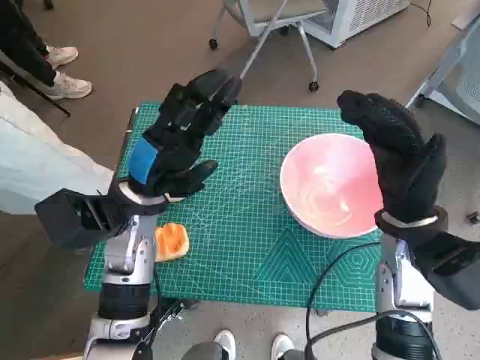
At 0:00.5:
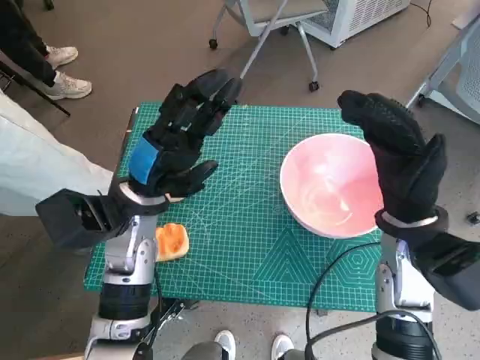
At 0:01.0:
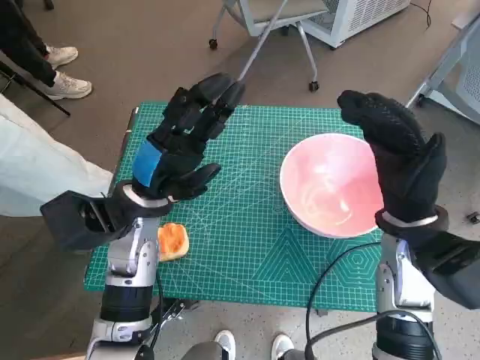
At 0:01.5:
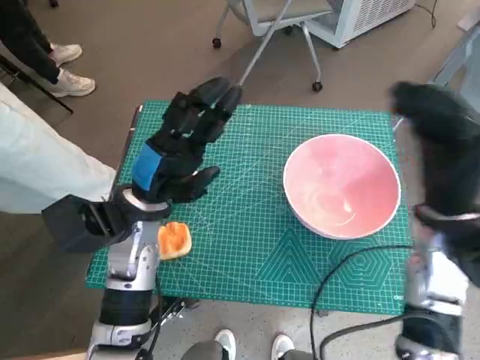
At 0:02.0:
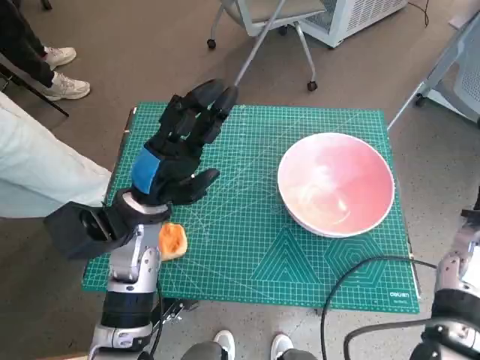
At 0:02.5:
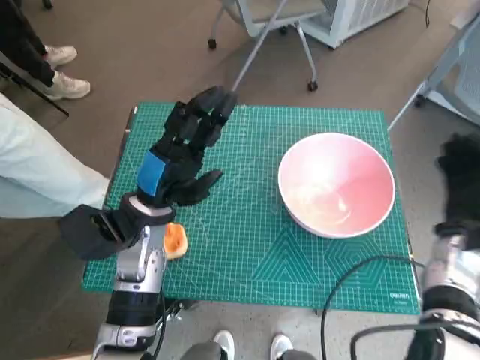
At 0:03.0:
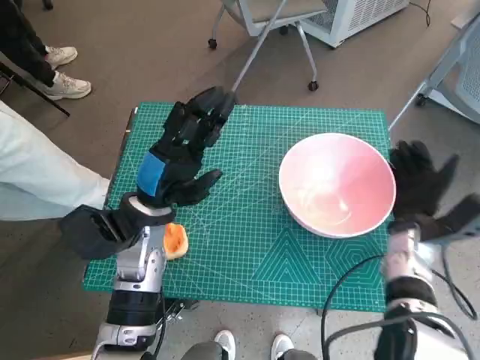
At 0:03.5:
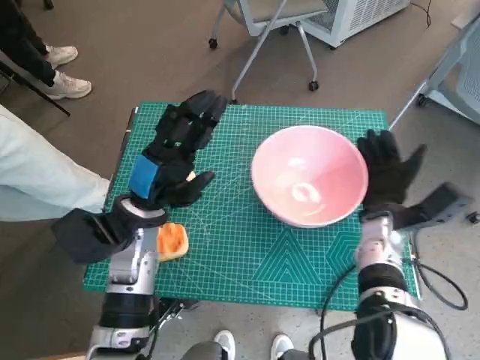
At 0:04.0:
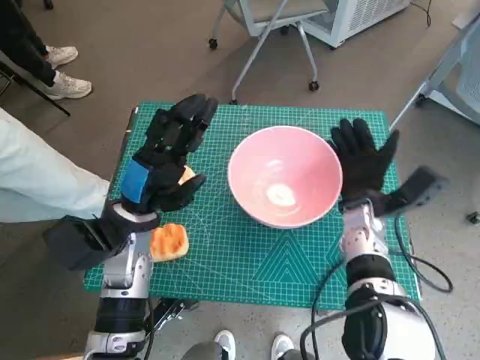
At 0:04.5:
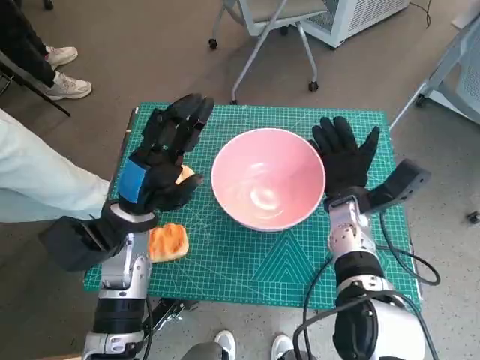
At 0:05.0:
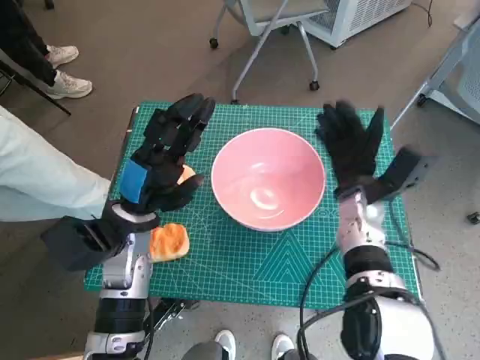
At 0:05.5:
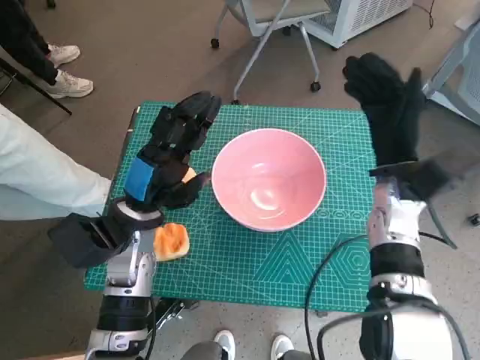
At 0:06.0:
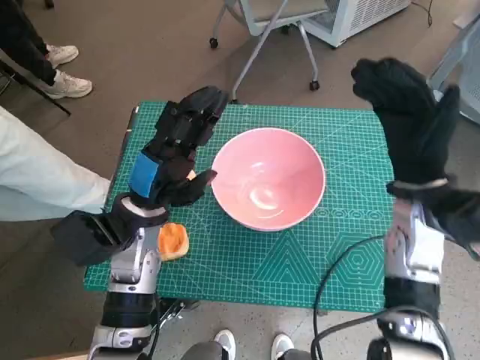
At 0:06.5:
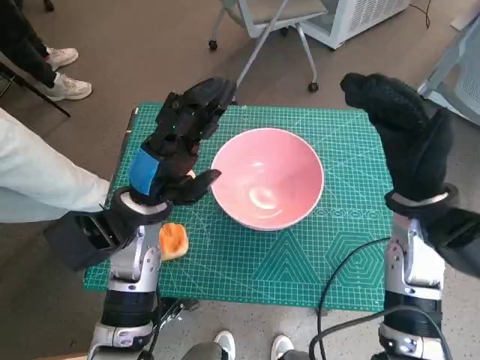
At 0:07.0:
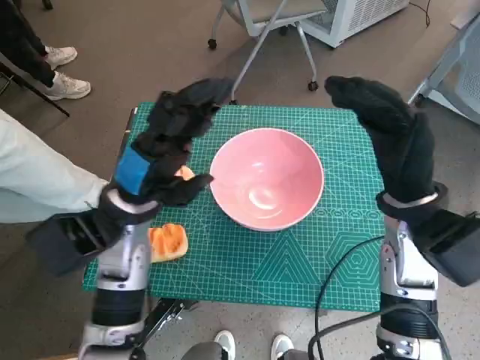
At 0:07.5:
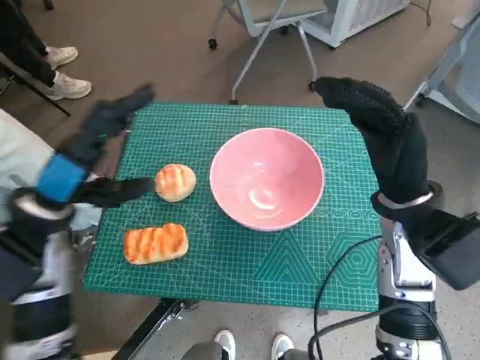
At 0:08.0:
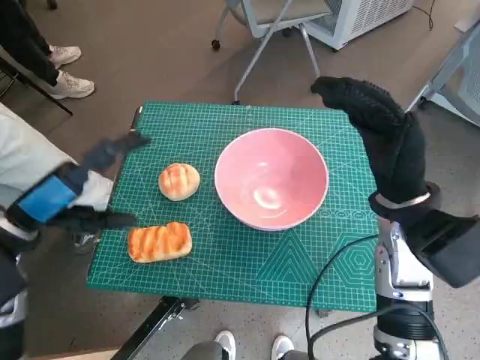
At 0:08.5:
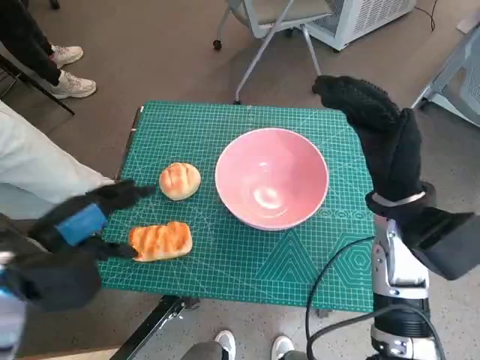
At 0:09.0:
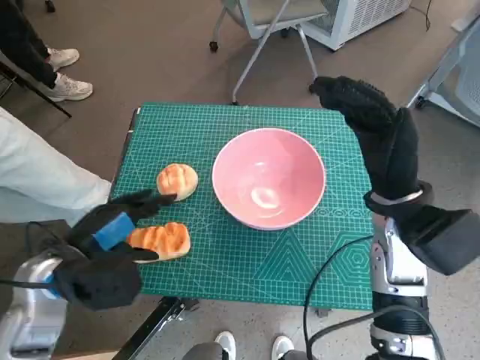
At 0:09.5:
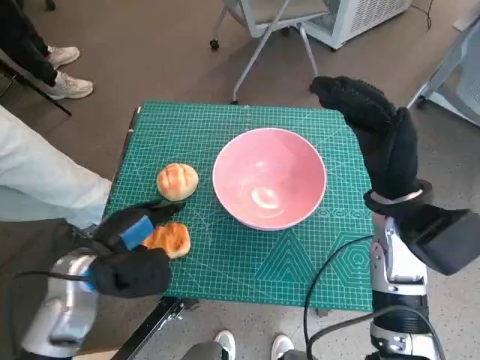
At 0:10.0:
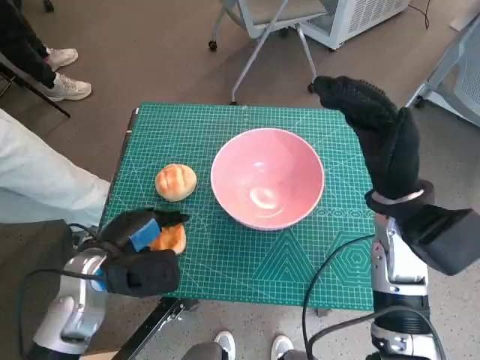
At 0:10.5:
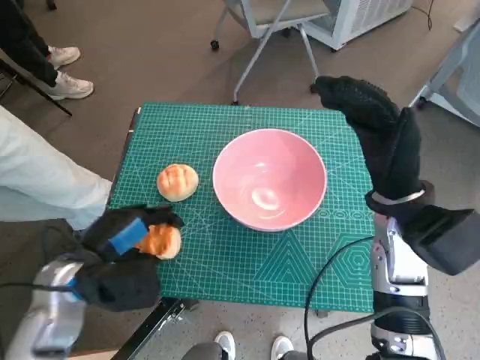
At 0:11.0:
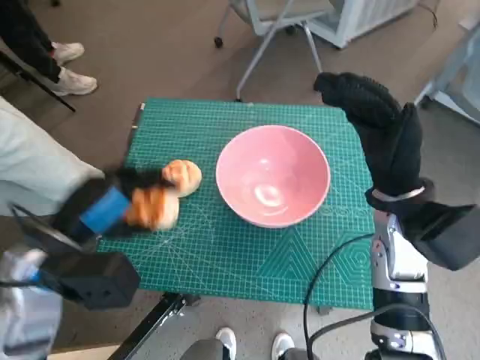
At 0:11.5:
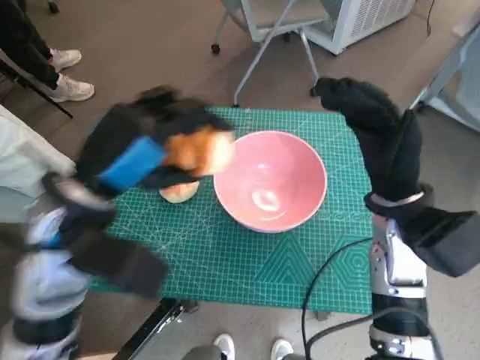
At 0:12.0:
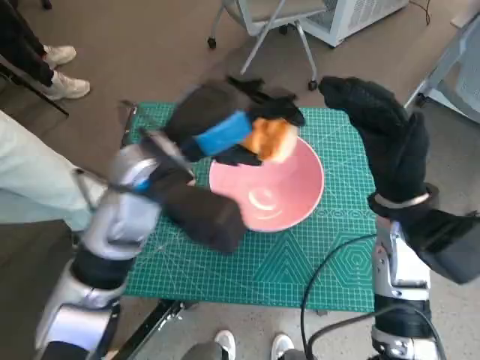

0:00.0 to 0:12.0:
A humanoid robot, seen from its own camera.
Task of the whole recording: Push the bowl into the center of the table and put the bread into the bowl.
Step, 0:00.0 to 0:05.0: Move the pink bowl to the center of table with right hand.
Step, 0:05.5 to 0:10.0: Grasp the long bread with left hand.
0:02.0 to 0:04.0: The right hand is displaced to the left and downward by about 15 cm.
0:04.0 to 0:06.0: The right hand shifts approximately 10 cm upward.
0:06.0 to 0:08.0: The left hand travels to the left, upward and backward by approximately 15 cm.
0:08.0 to 0:10.0: The left hand is displaced downward and to the right by approximately 10 cm.
0:10.0 to 0:12.0: The left hand goes about 20 cm upward, to the right and forward.

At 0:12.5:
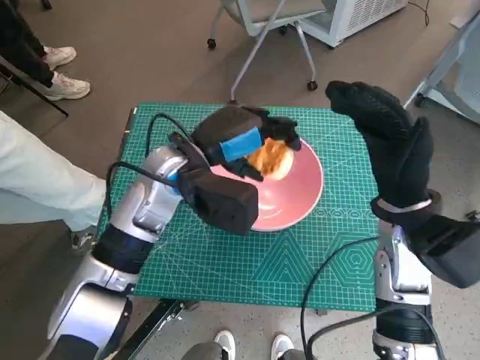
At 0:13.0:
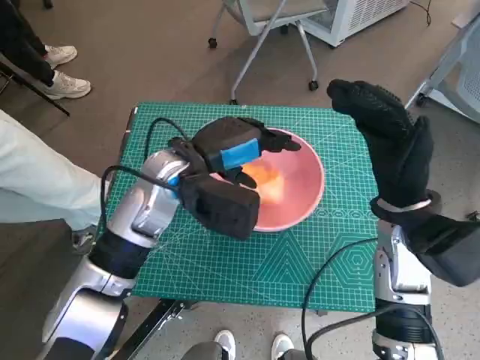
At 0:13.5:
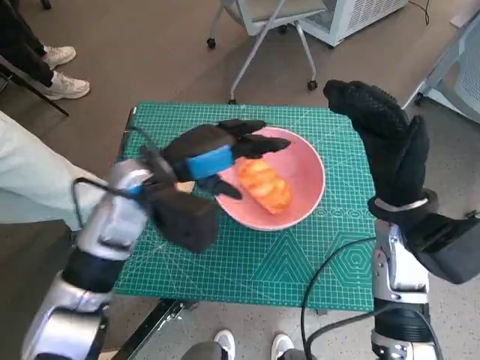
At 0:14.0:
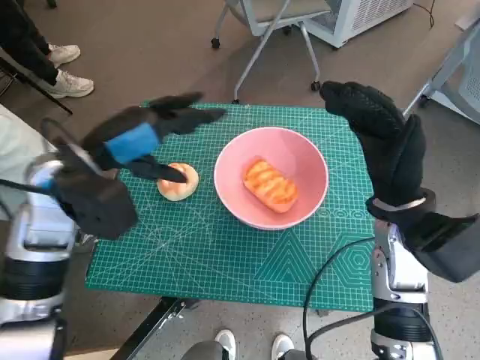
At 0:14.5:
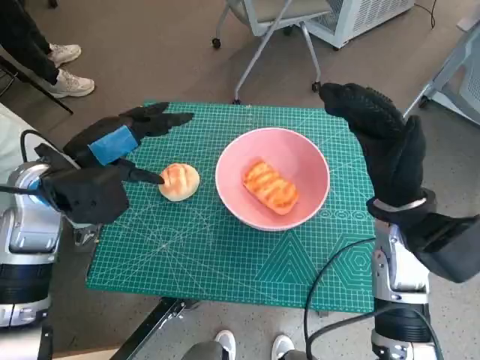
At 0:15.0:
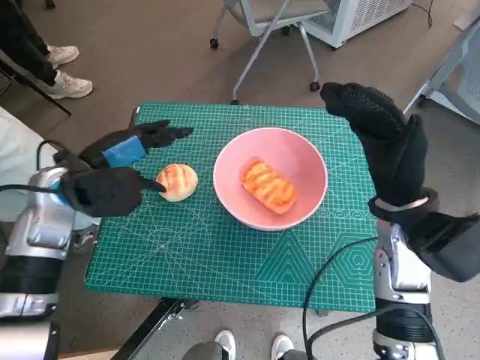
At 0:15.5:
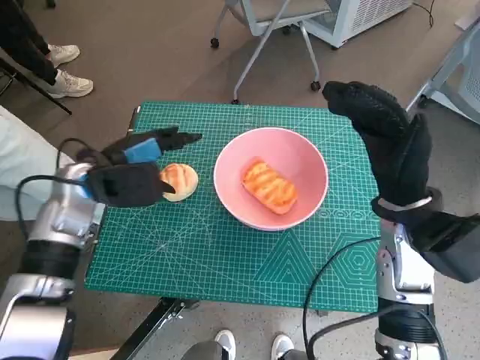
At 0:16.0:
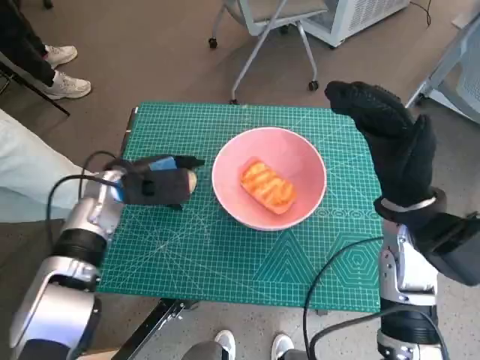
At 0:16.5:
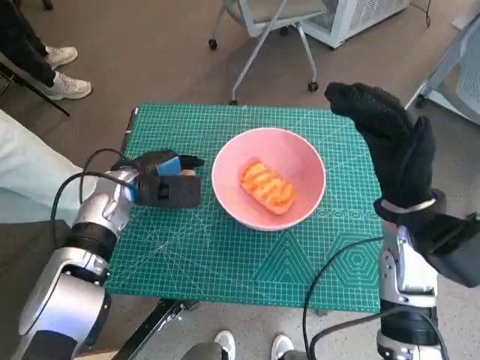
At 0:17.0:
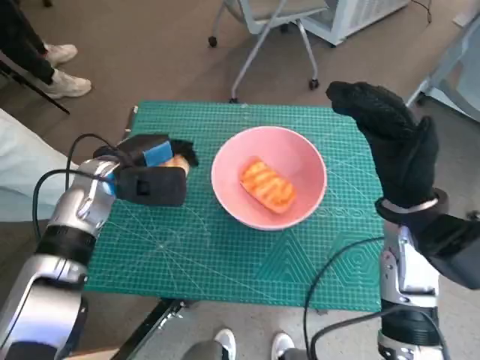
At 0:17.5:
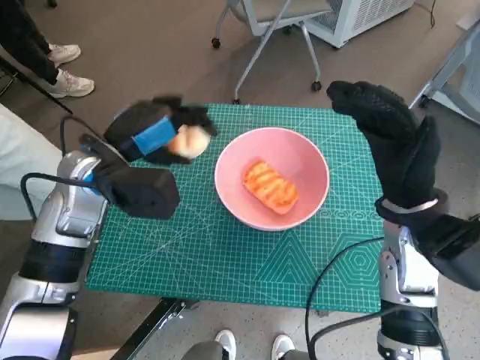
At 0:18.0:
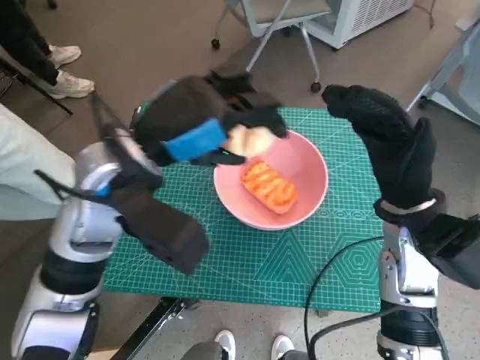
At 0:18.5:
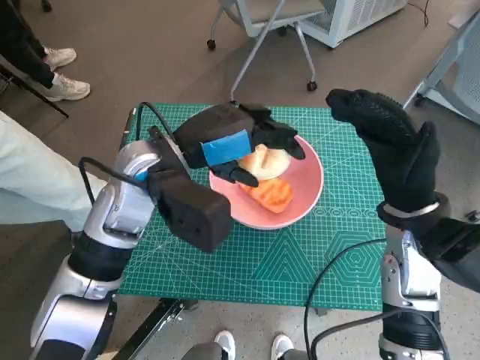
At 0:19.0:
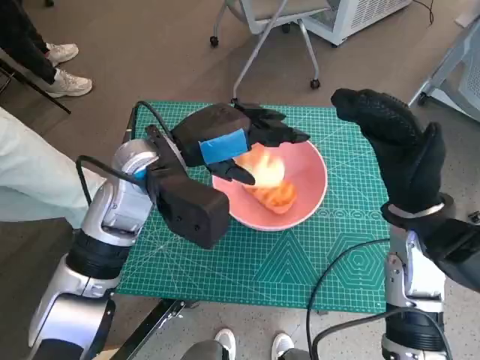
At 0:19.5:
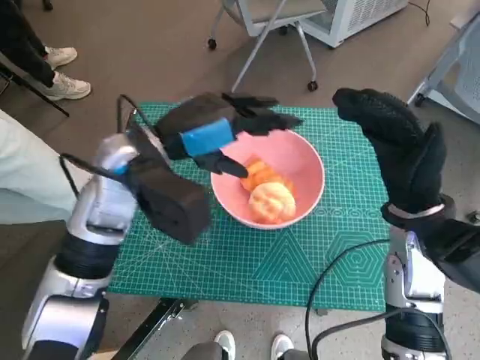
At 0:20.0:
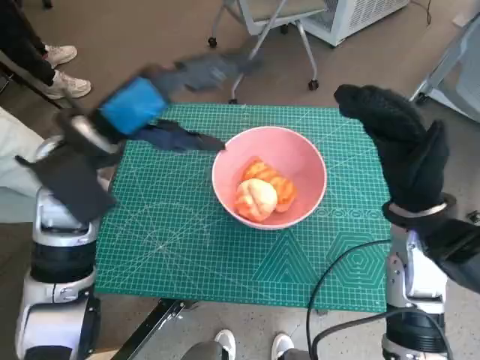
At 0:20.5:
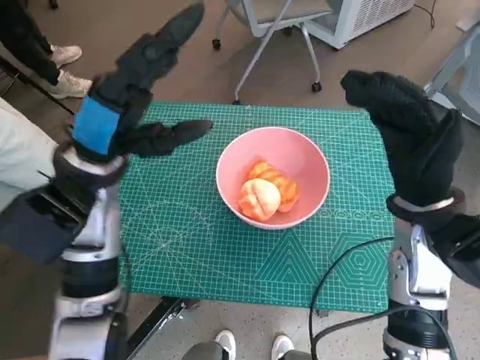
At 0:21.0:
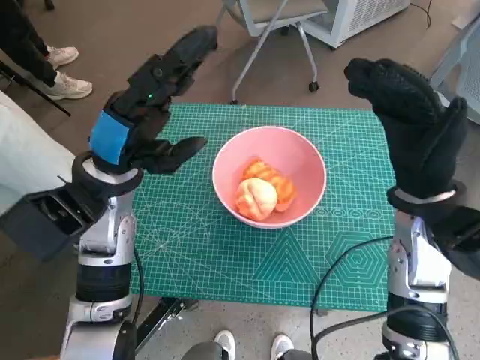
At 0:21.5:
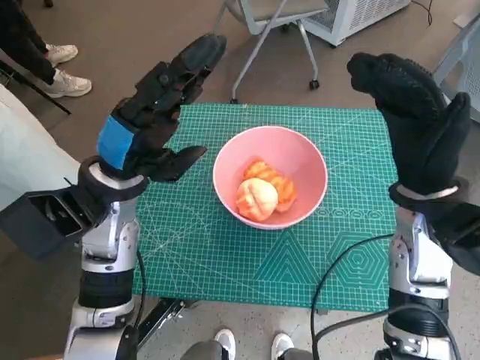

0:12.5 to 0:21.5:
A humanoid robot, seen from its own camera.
Task of the whole recording: Push the bowl into the center of the table and put the bread into the bowl.
Step, 0:14.0 to 0:16.0: Grasp the round bread with left hand.
Step, 0:16.5 to 0:19.0: Place the round bread in pink bowl with left hand.
0:12.5 to 0:14.5: The left hand is displaced to the left by approximately 15 cm.
0:14.5 to 0:17.0: The left hand goes roughly 10 cm downward and forward.
0:17.0 to 0:19.5: The left hand shifts some 15 cm upward and to the right.
0:19.5 to 0:21.5: The left hand ends up about 5 cm from where it was.

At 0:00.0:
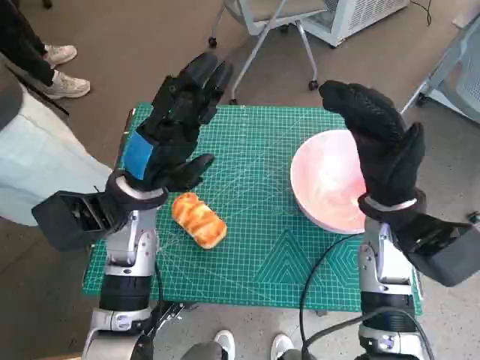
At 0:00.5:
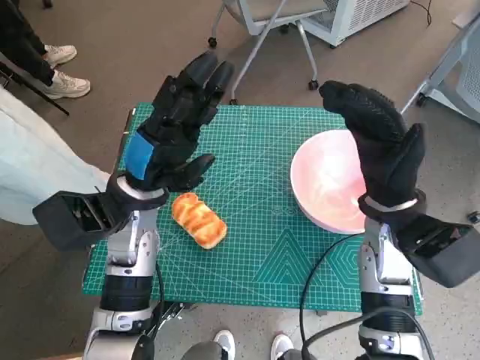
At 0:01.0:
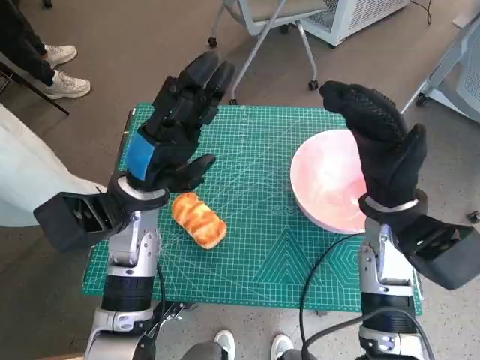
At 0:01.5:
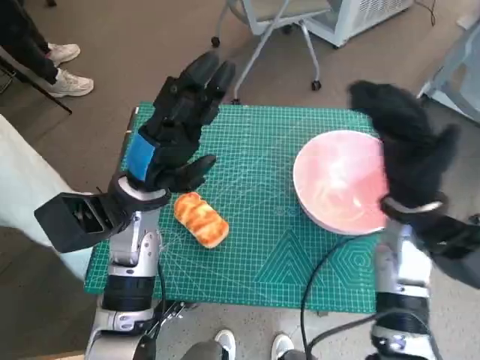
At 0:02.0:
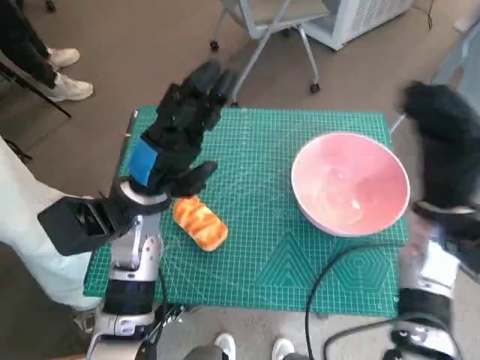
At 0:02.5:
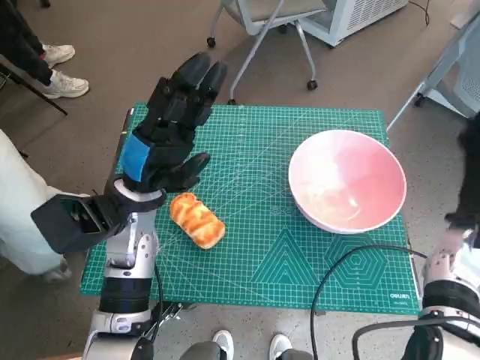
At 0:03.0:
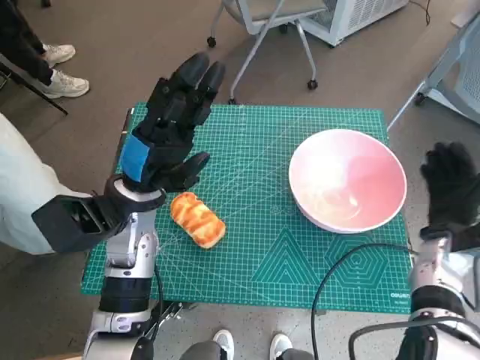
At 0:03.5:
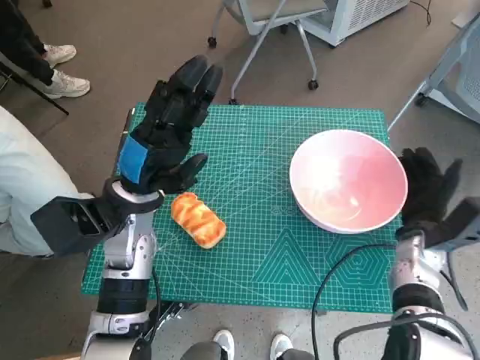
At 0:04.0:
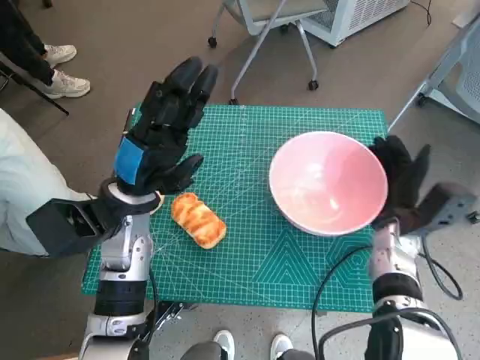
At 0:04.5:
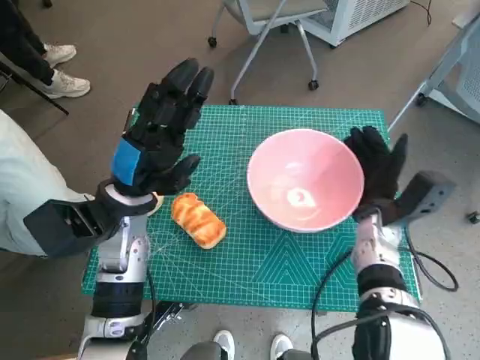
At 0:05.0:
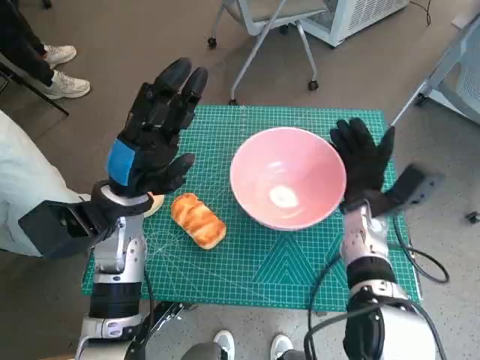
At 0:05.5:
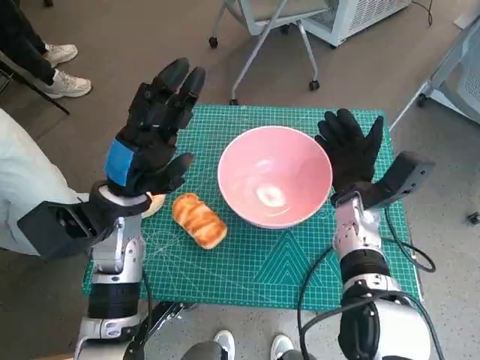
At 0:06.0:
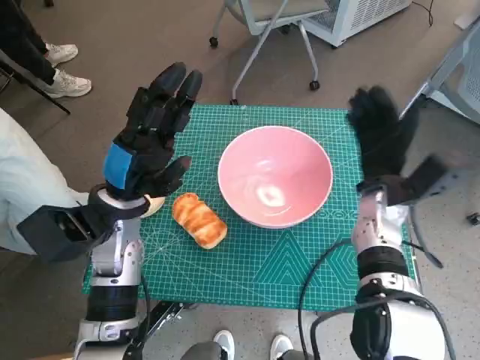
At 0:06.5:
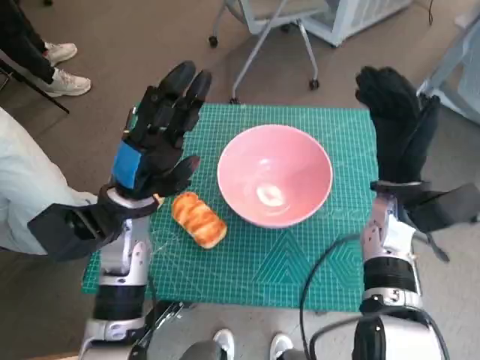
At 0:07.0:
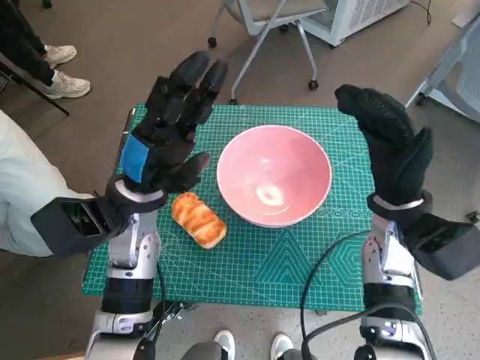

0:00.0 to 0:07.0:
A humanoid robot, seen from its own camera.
Task of the whole recording: Push the bowl into the center of the table and put the bread into the bowl.
Step, 0:00.0 to 0:06.0: Move the pink bowl to the center of table with right hand.
0:02.0 to 0:03.5: The right hand shifts roughly 10 cm downward.
0:03.5 to 0:05.0: The right hand shifts approximately 10 cm to the left.
0:05.0 to 0:07.0: The right hand goes some 5 cm upward.
